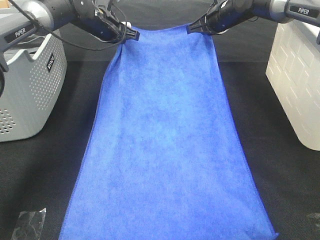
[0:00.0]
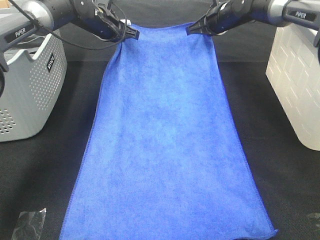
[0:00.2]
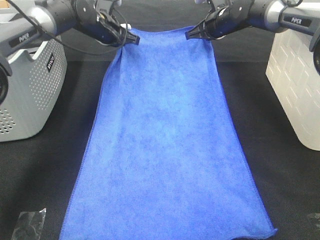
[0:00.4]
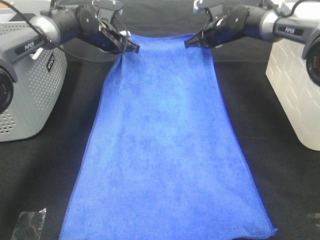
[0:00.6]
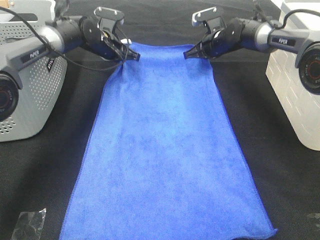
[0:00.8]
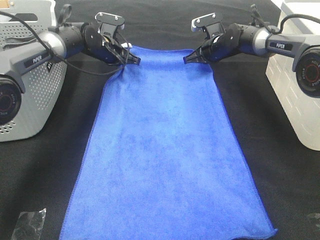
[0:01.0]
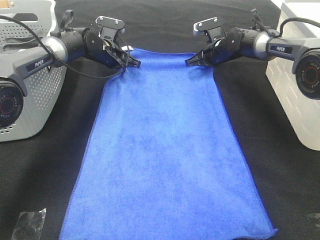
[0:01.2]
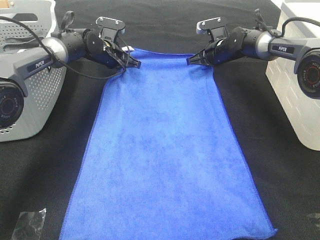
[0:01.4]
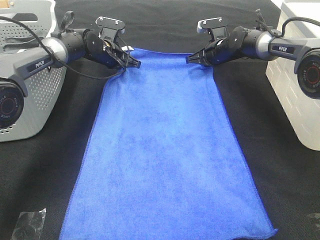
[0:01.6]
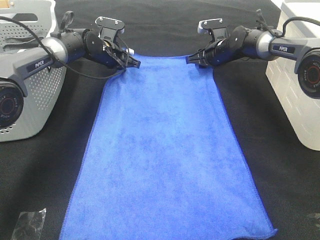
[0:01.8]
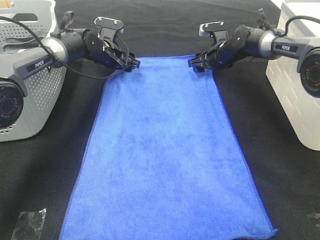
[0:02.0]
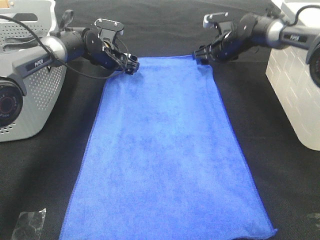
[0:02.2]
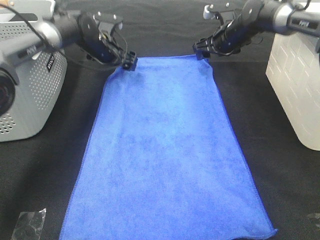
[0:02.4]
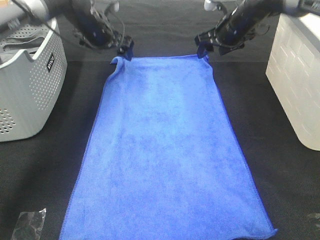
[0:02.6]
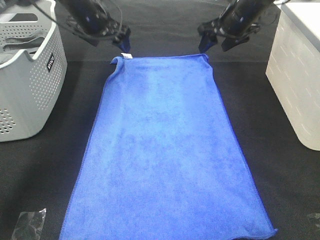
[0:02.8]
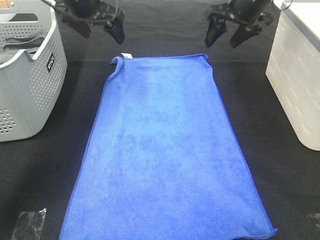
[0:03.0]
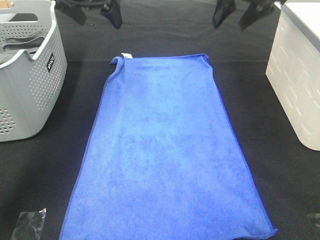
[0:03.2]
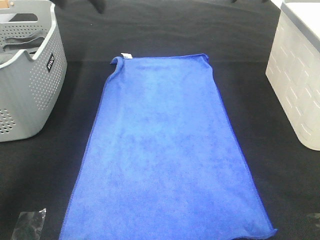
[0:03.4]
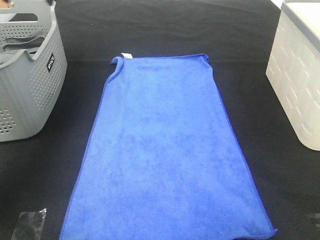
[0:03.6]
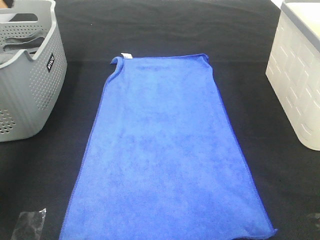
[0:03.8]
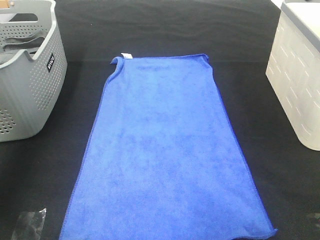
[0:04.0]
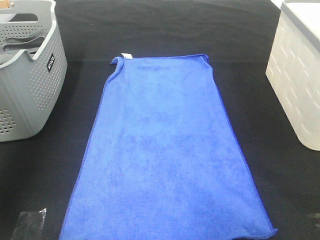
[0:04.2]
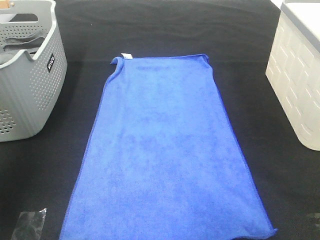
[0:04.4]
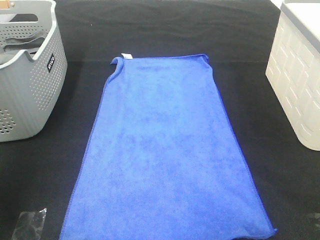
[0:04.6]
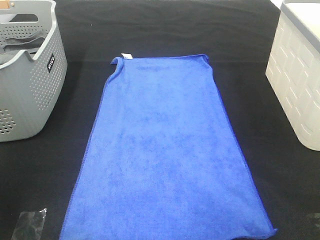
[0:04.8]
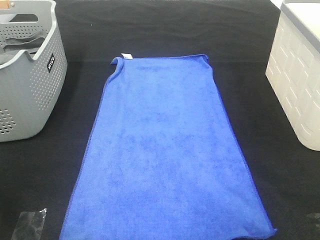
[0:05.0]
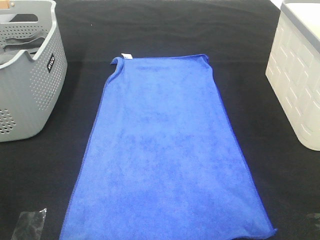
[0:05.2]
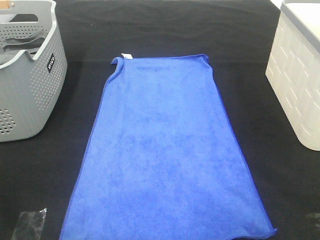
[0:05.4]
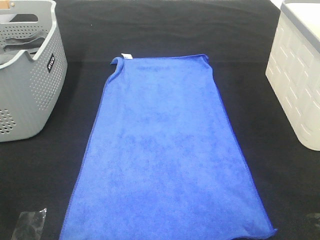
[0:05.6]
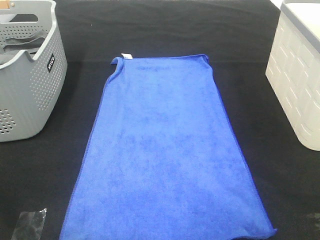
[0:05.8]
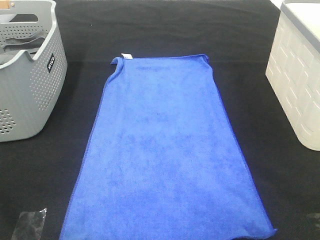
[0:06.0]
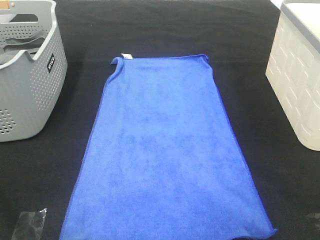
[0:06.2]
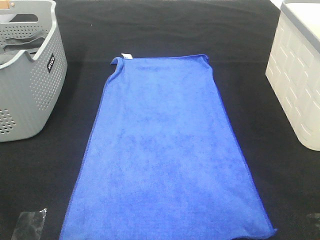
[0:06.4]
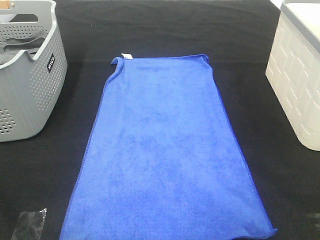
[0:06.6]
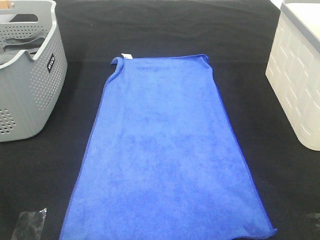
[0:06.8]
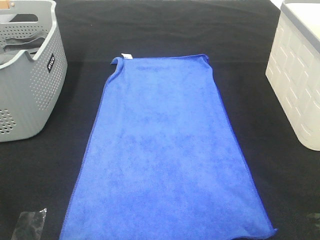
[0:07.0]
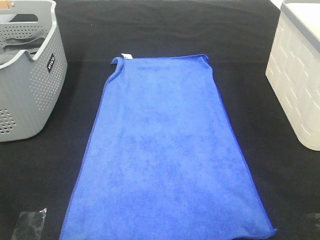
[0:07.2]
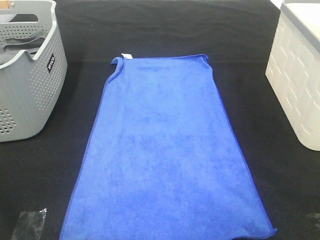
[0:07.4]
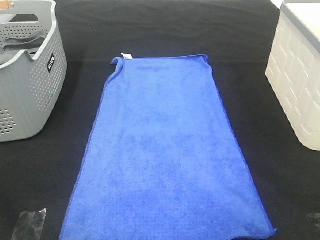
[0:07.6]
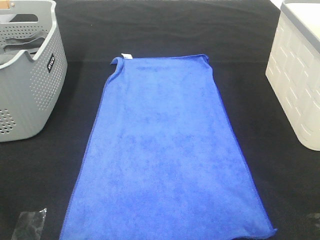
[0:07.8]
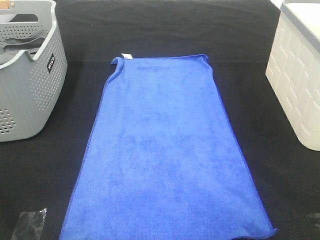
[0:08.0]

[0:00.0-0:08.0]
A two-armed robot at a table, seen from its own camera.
Task of the whole recording: Remove the towel and place it.
0:00.0 to 0:01.6: The grippers both shift downward by some 10 cm.
0:01.6 to 0:03.2: The left gripper shifts some 20 cm upward, and opens its fingers. The right gripper travels upward and backward by some 25 cm, and opens up.
0:03.2 to 0:04.8: The left gripper travels backward and to the left by some 40 cm; the right gripper goes about 50 cm backward.
0:06.4 to 0:08.0: Both grippers stay about where they are.

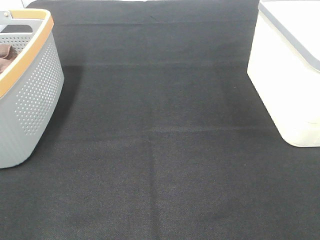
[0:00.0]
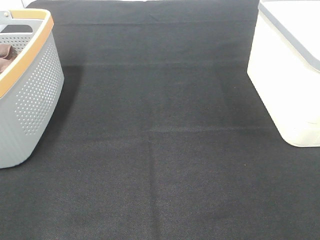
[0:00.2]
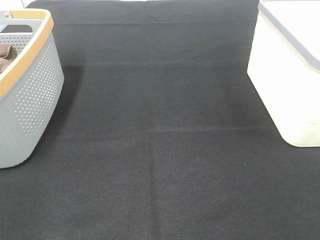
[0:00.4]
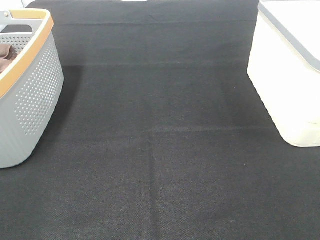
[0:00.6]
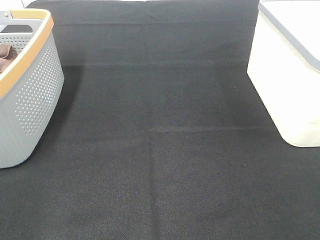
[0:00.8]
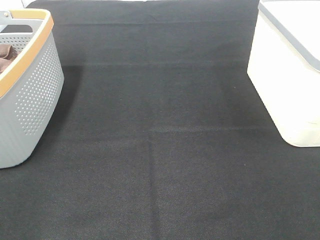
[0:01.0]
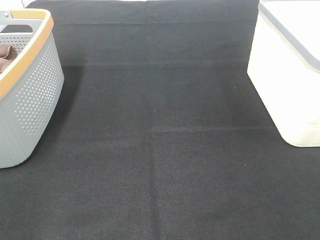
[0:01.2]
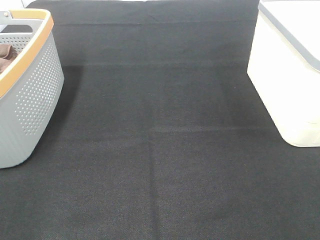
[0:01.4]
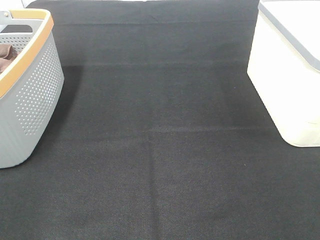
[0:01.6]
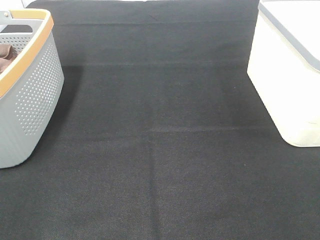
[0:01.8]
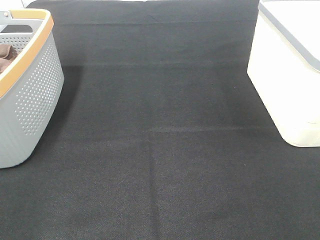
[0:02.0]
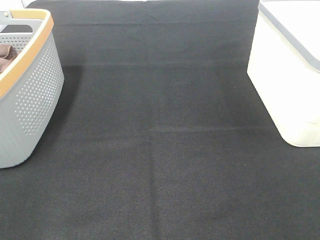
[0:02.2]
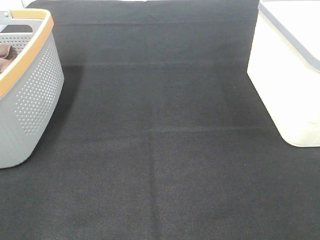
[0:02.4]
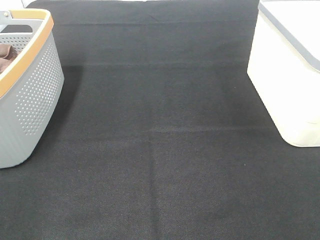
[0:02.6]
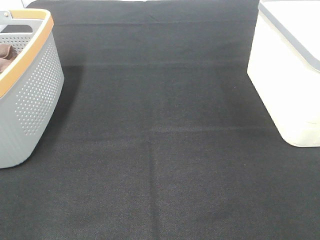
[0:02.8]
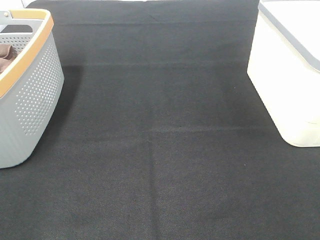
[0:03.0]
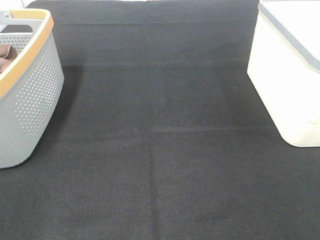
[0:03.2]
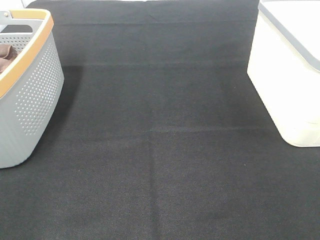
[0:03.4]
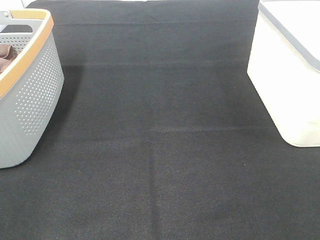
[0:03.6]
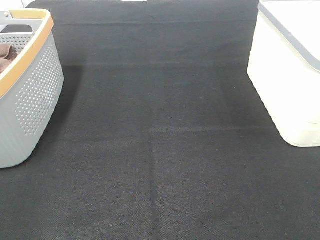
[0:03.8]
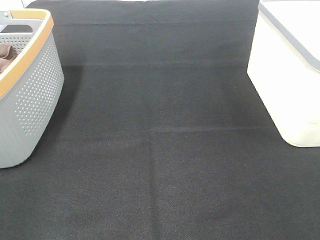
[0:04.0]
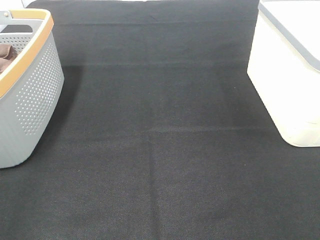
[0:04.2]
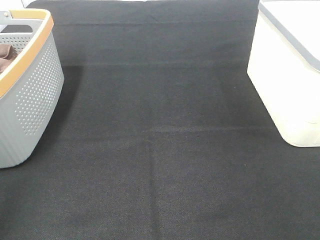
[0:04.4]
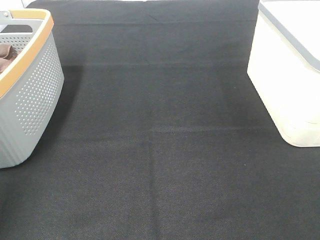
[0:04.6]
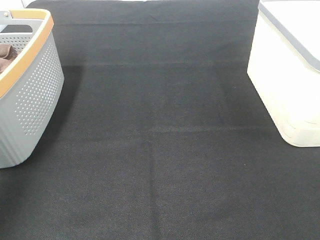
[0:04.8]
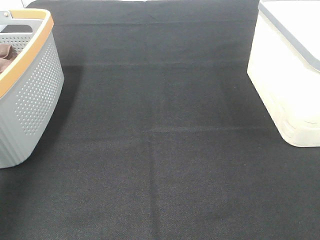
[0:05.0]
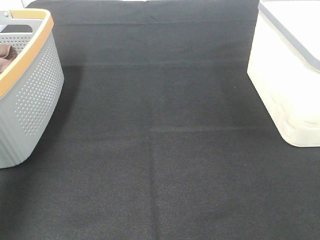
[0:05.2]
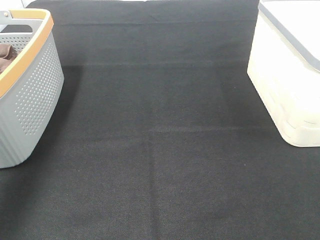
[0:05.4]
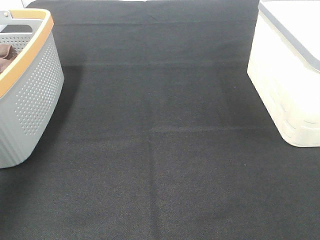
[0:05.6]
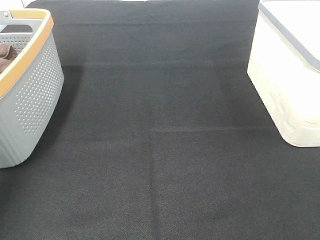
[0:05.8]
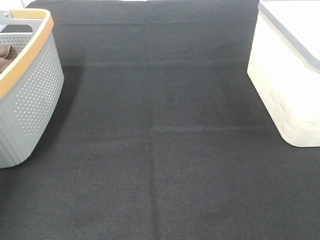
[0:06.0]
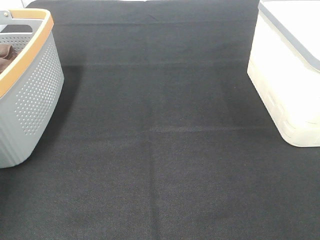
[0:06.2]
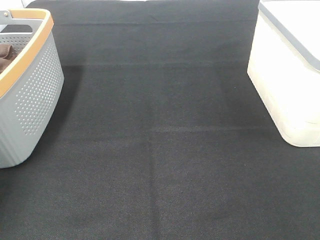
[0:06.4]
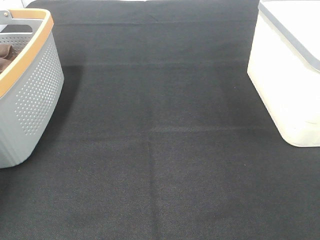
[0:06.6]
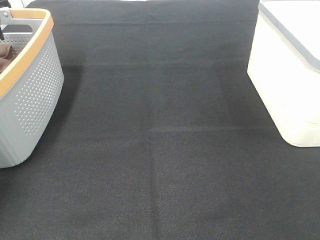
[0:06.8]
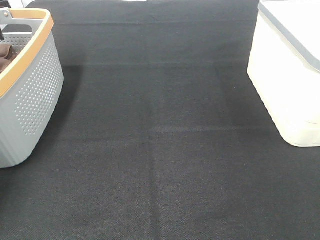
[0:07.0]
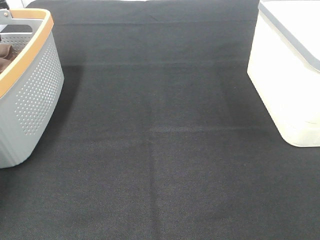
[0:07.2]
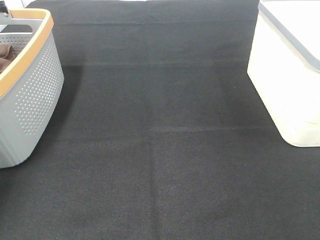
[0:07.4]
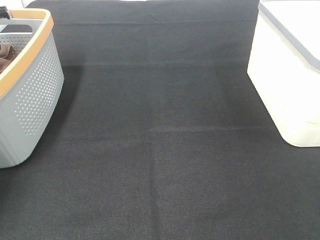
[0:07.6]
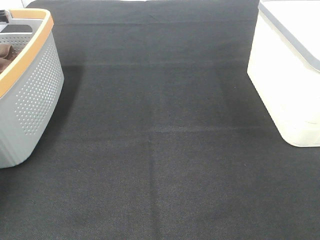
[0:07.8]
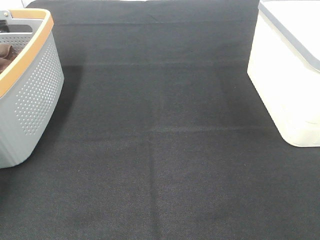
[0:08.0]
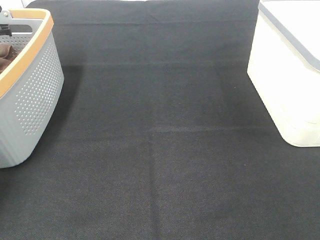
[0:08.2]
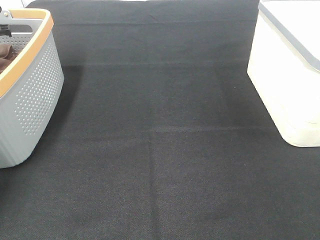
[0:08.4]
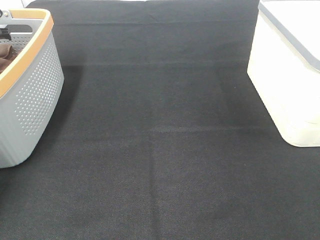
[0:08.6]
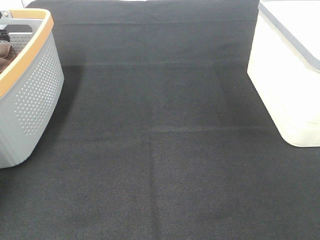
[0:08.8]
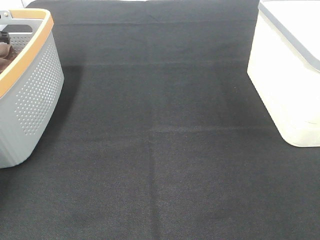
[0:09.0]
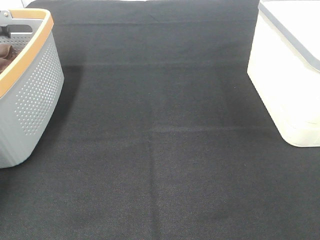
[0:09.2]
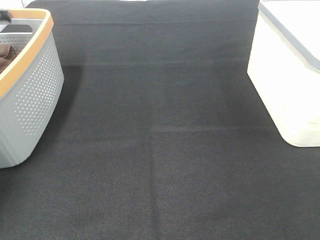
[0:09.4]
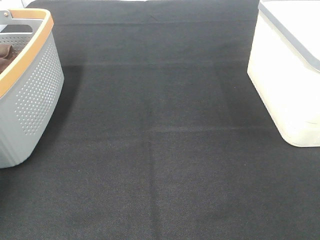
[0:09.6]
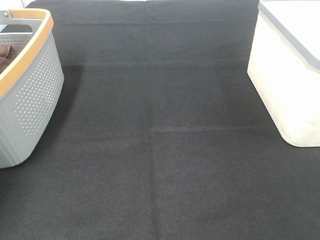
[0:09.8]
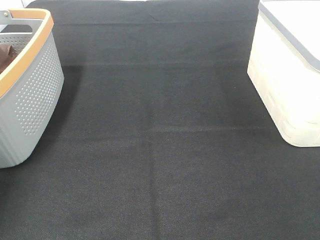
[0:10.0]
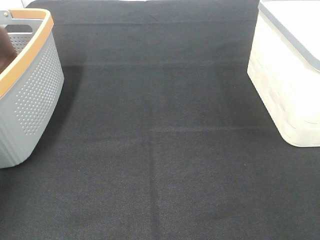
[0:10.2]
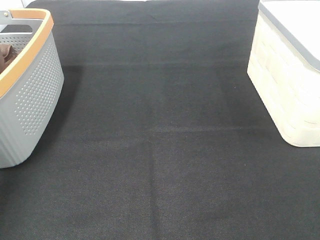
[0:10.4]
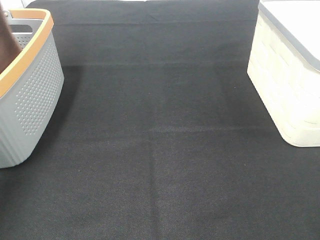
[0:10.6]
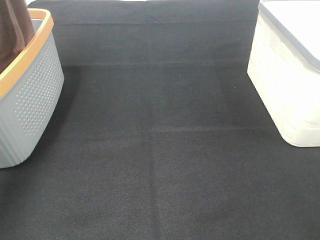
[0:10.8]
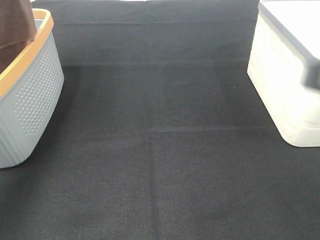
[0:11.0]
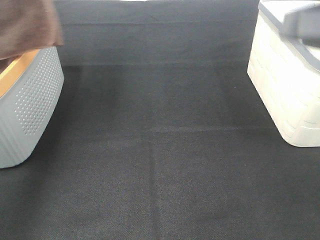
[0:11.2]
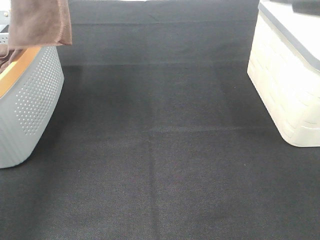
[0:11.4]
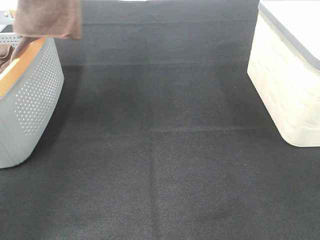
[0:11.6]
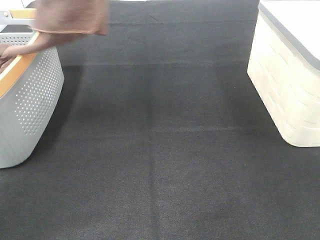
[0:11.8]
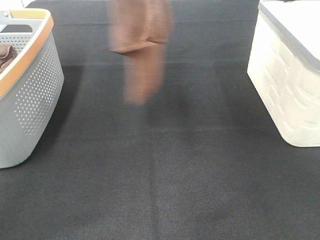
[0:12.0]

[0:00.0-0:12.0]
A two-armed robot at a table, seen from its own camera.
Task of the whole recording: Remove the towel and place it.
0:00.0 to 0:03.0: The two grippers keep their place.
0:10.4 to 0:12.0: The right gripper travels forward and to the left by some 25 cm, while the left gripper moves to the right, upward and backward, some 25 cm.

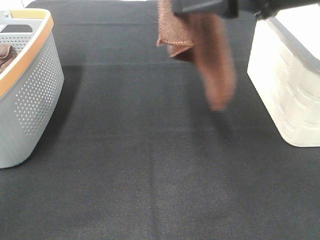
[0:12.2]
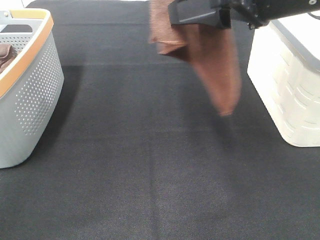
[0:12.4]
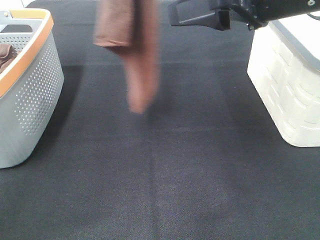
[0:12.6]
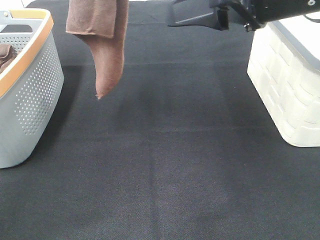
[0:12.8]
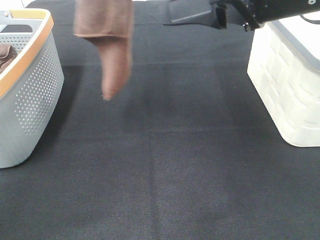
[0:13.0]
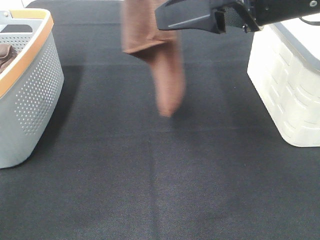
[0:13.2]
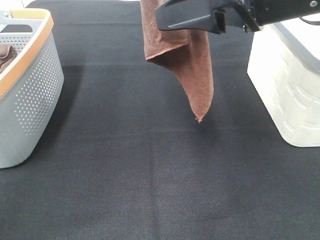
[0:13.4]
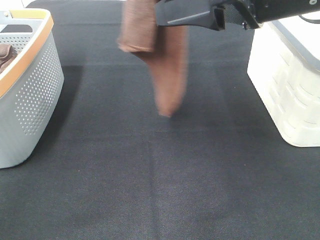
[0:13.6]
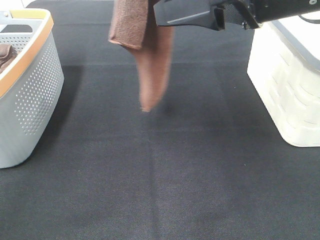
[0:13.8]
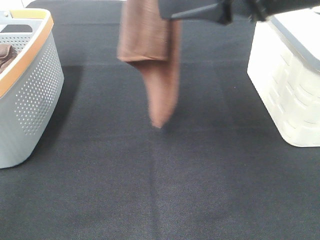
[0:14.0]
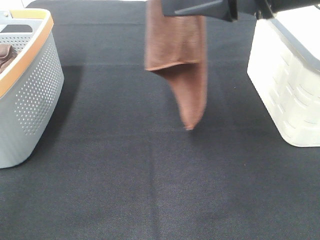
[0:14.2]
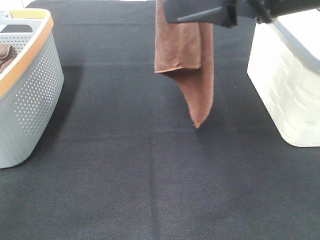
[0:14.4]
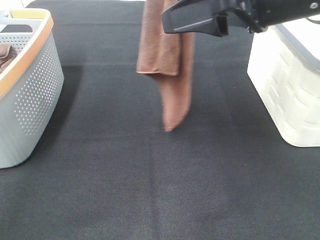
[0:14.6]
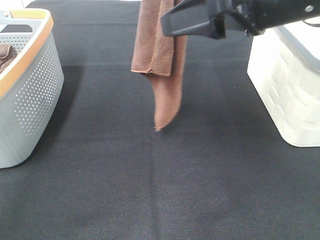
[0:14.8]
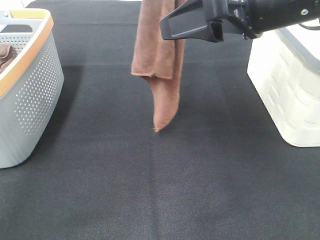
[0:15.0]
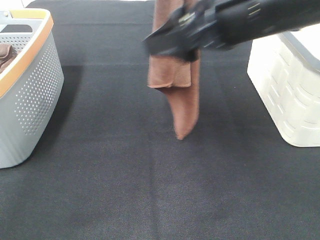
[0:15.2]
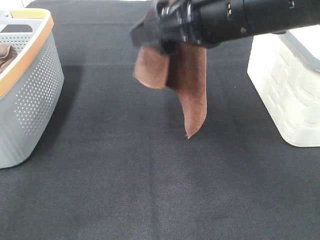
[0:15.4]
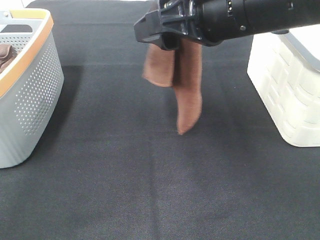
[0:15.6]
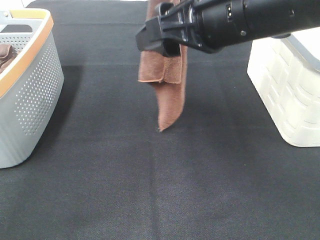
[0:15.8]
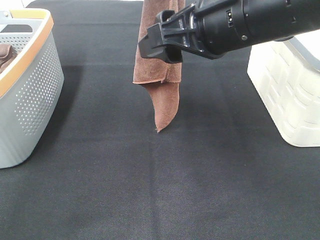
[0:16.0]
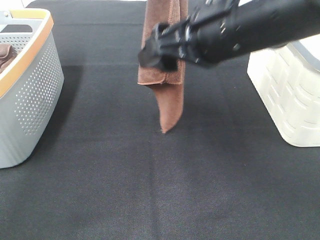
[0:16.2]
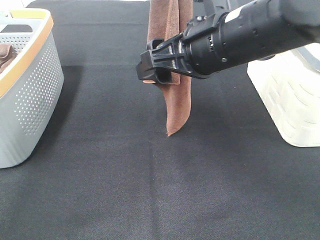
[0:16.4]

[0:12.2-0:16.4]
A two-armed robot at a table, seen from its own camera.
Task of the whole recording: Remove the towel and place it.
Step, 0:12.2 to 0:15.0: Right hand: grab a corner of the brown towel and straighten it.
0:12.2 to 0:13.6: The grippers make only small movements.
0:13.6 to 0:15.0: The left gripper heads downward, covering approximately 5 cm.
0:15.0 to 0:16.4: The right gripper shifts roughly 5 cm to the left and downward.
